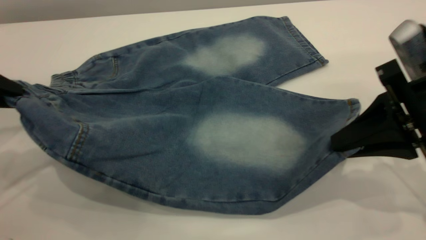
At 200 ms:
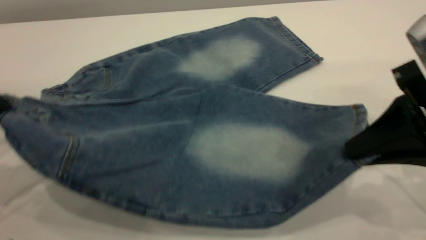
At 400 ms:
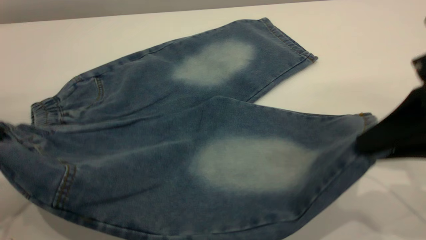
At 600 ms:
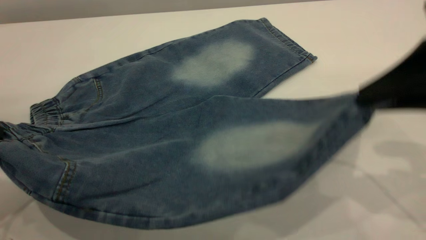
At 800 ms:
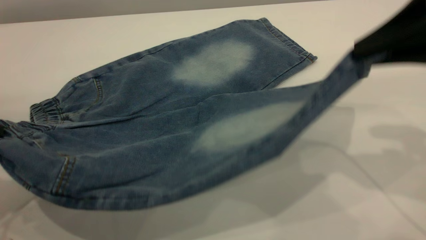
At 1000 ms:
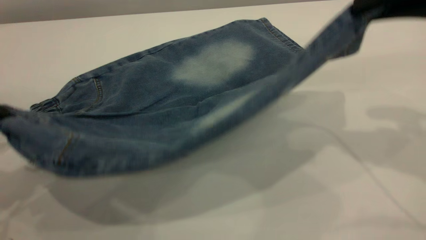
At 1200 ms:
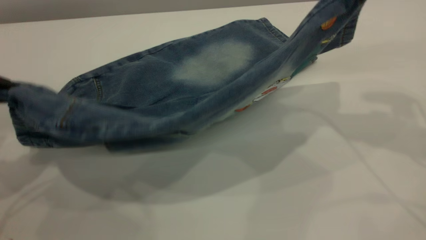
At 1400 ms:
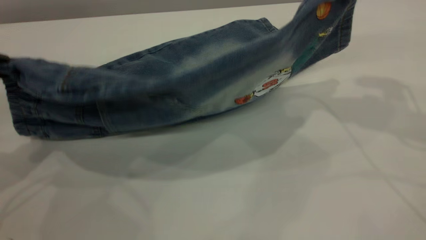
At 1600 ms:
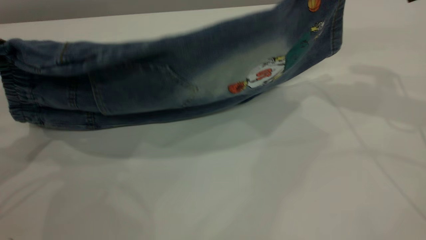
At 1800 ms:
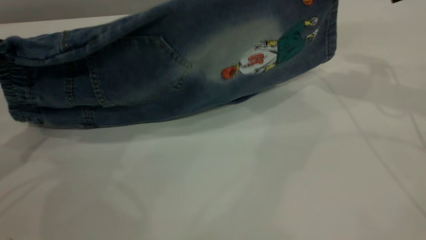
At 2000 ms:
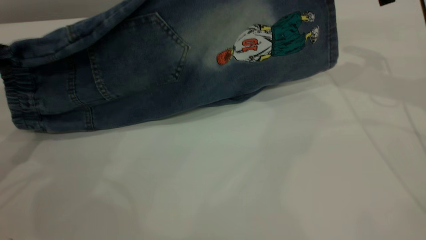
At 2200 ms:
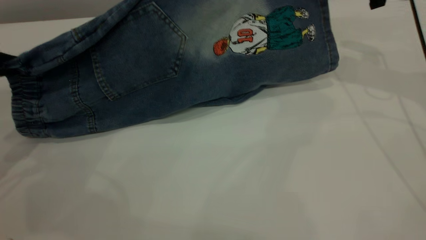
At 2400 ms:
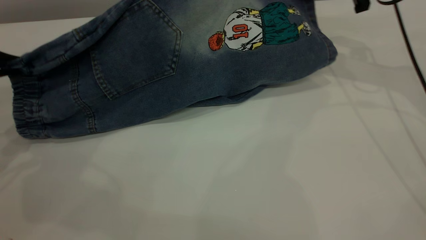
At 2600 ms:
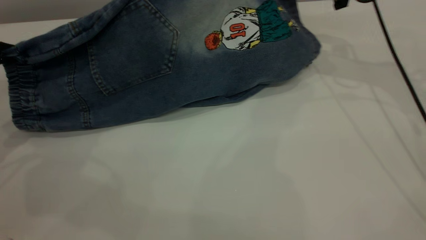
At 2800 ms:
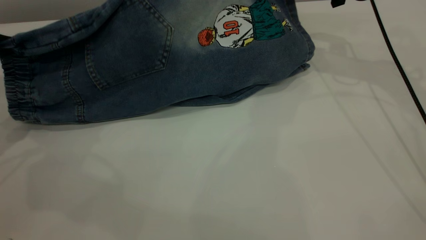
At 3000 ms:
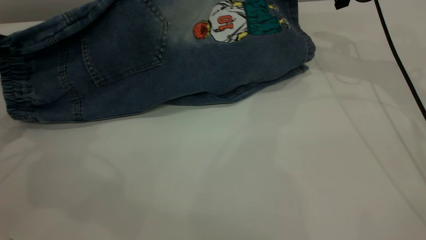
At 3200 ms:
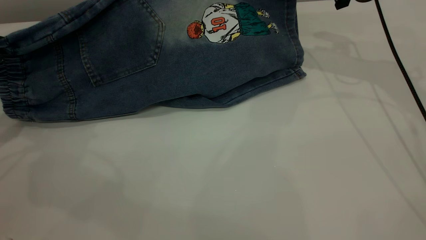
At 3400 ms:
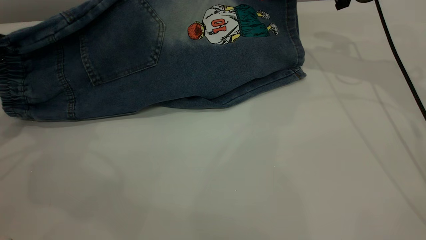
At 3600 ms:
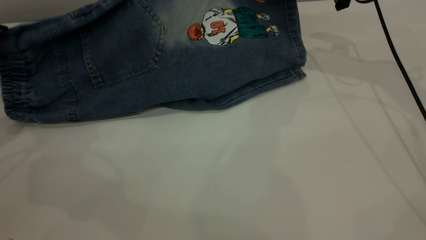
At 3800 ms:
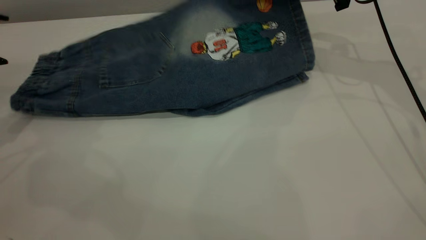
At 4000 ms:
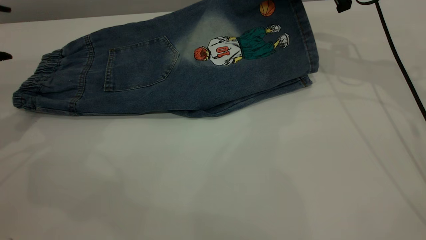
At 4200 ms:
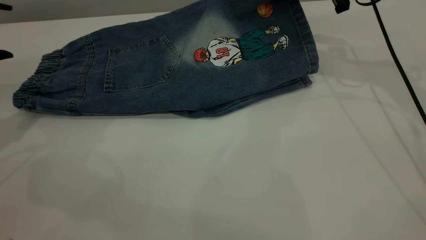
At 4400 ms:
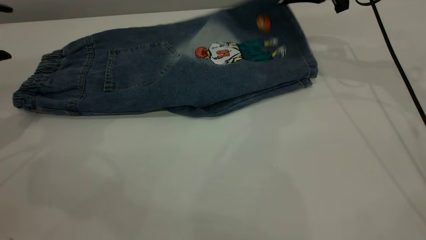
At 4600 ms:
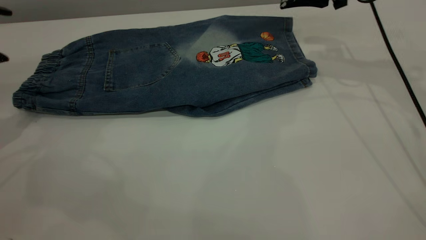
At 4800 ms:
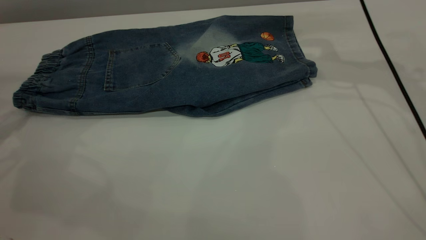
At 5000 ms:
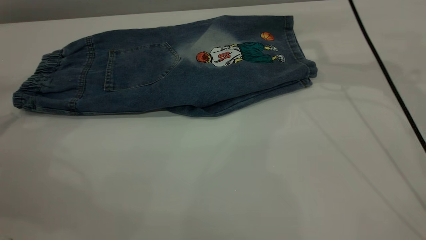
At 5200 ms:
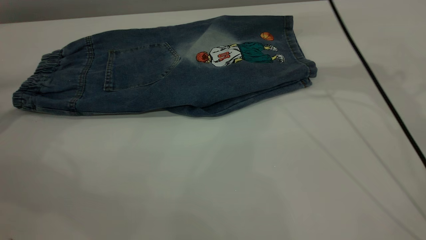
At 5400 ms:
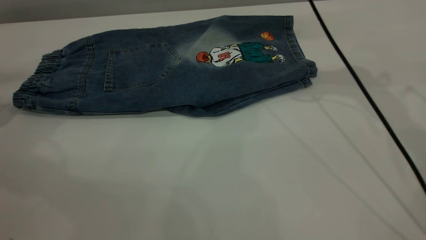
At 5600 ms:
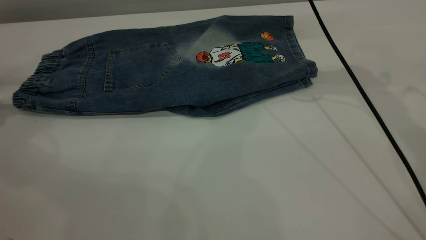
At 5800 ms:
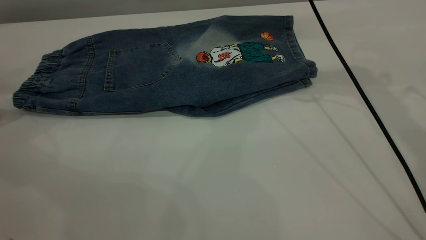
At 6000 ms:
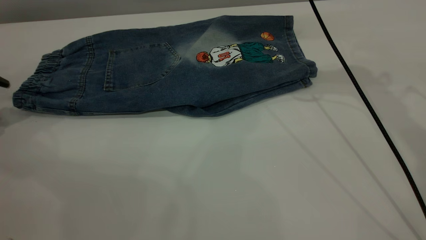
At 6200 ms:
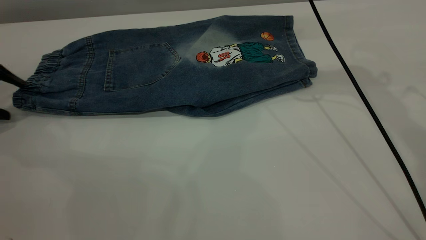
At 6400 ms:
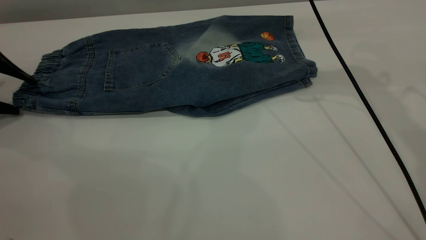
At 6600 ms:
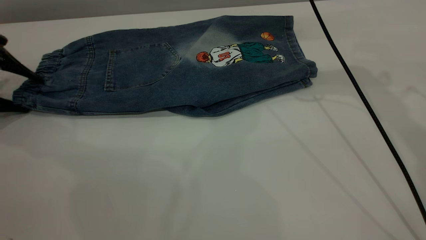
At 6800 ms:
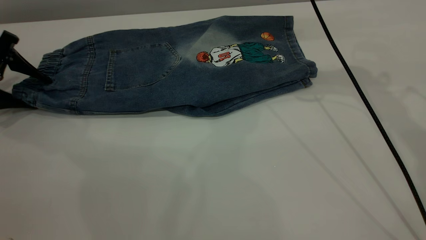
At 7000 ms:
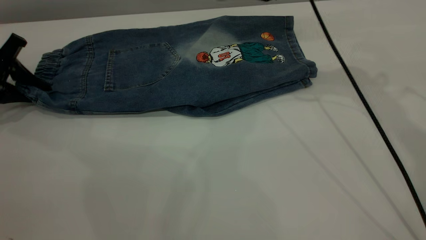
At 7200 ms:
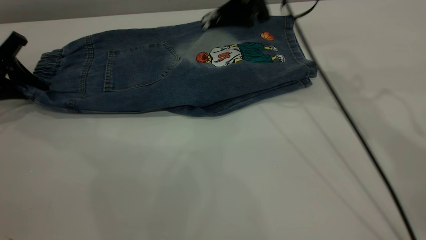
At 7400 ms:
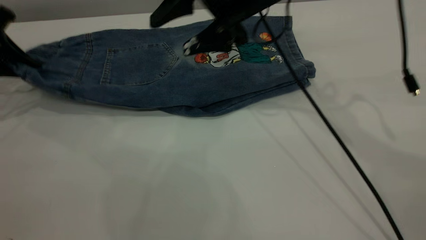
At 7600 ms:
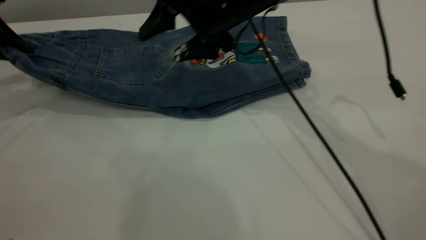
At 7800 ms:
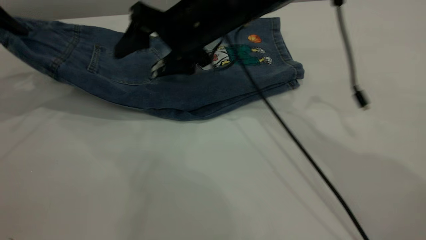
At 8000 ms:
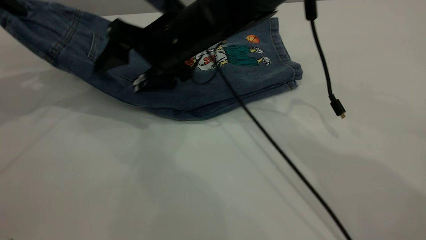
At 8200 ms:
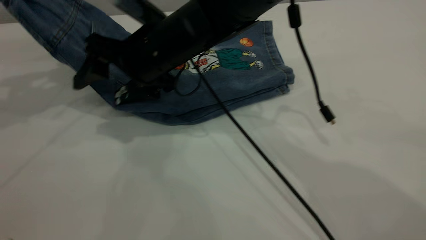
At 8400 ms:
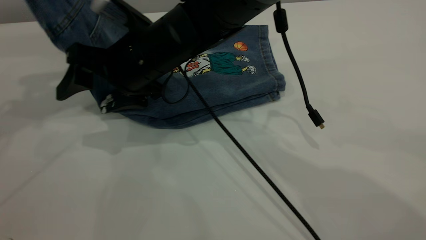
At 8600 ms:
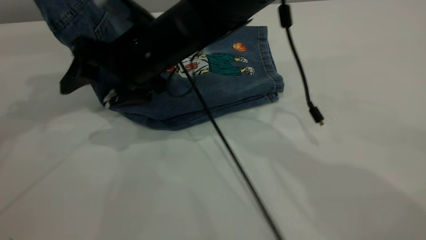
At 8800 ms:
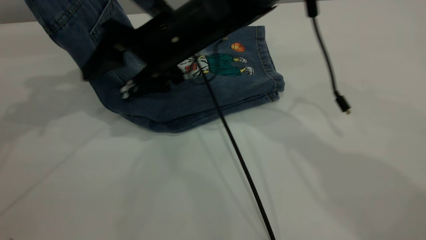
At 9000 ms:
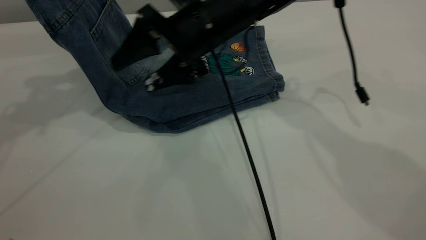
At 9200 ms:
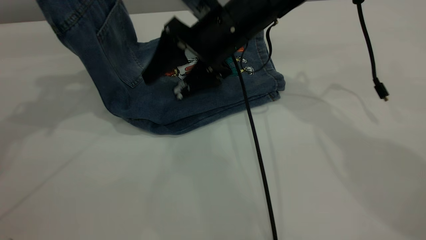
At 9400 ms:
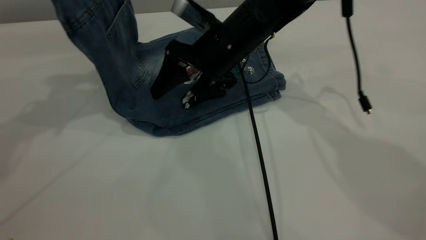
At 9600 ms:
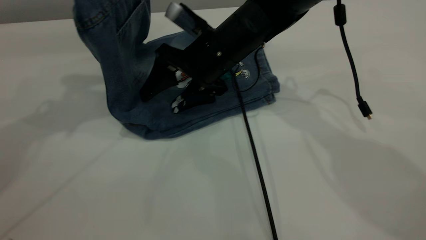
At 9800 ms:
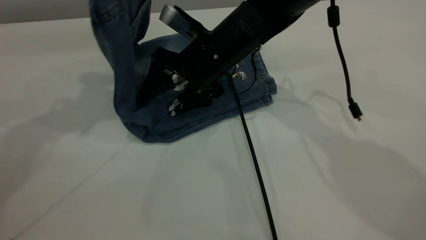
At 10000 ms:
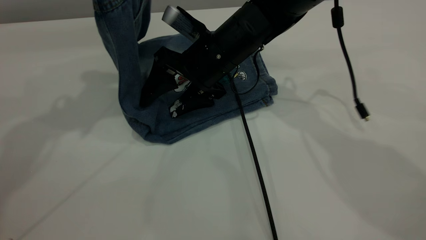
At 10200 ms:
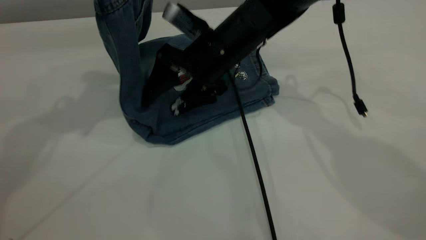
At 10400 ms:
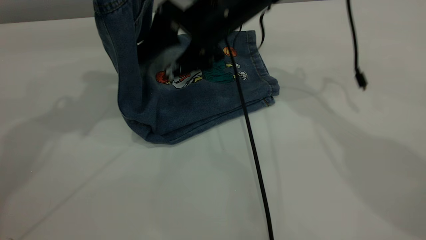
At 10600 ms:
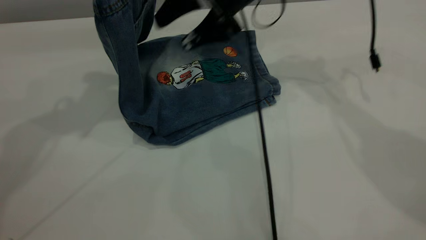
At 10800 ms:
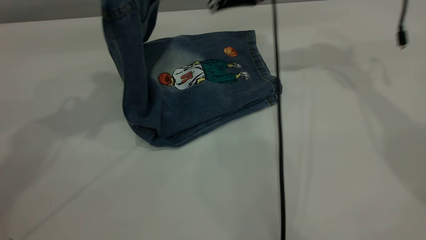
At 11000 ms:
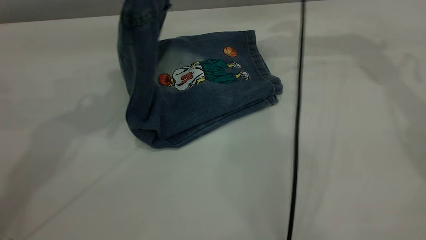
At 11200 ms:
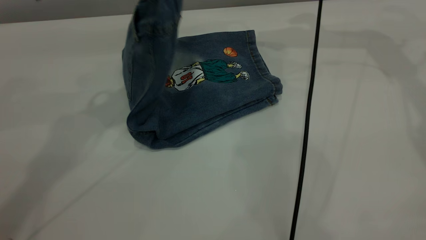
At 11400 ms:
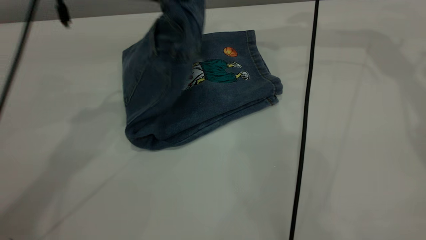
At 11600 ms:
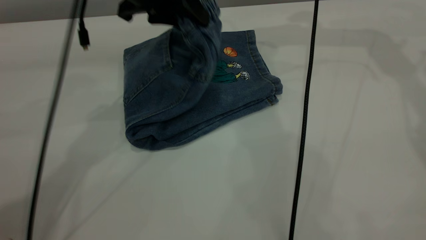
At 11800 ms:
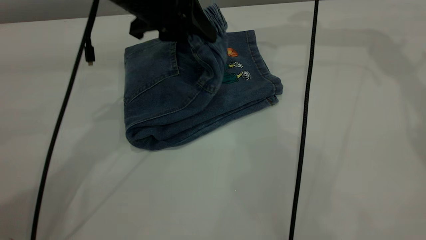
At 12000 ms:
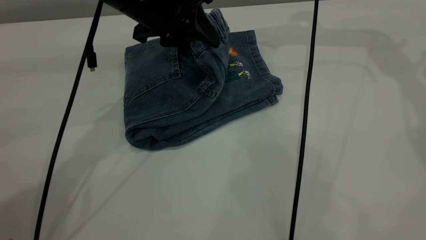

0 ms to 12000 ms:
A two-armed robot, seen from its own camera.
Step, 0 ms to 4600 ms: Fold the bottom of the pants upward.
0 ms to 1600 ms: The right gripper goes roughly 20 cm forward and upward.
1600 ms to 3000 ms: The left gripper travels forward by approximately 5 cm, while the right gripper shifts roughly 10 cm forward and downward.
3000 ms to 4400 ms: The left gripper opens up. Meanwhile the right gripper opens up.
4400 ms to 6000 ms: The right gripper moves to the left, about 10 cm, and opens. The left gripper shifts about 10 cm downward and to the left.
6000 ms to 7600 ms: The left gripper is displaced upward and to the right by roughly 10 cm, and closes. The right gripper moves to the left and downward, about 15 cm.
7600 ms to 9000 ms: The left gripper travels upward and to the right by some 15 cm; the right gripper travels to the left and back again, roughly 10 cm each way.
9000 ms to 10400 ms: The left gripper moves to the right, some 10 cm.
10400 ms to 12000 ms: The left gripper moves downward and to the right, roughly 20 cm, while the right gripper moves to the right, upward and forward, some 25 cm.

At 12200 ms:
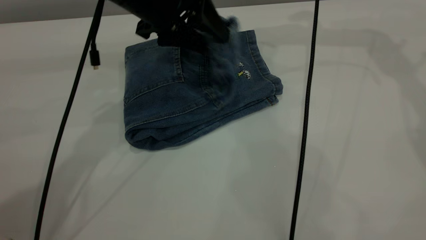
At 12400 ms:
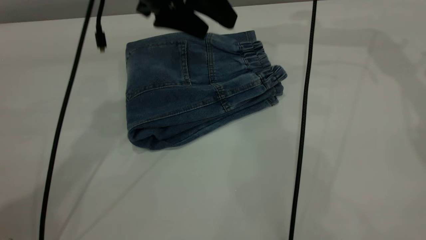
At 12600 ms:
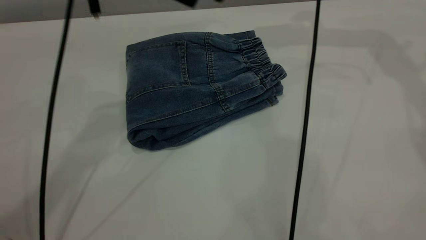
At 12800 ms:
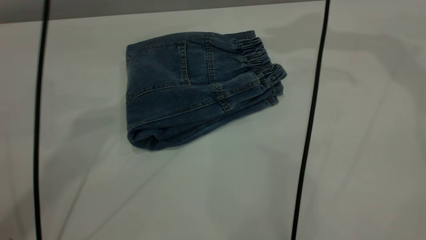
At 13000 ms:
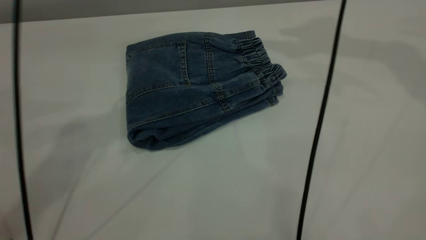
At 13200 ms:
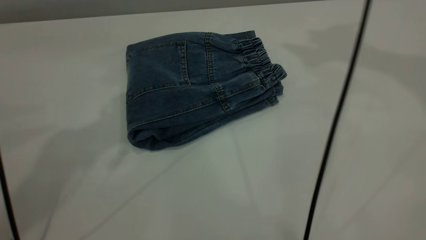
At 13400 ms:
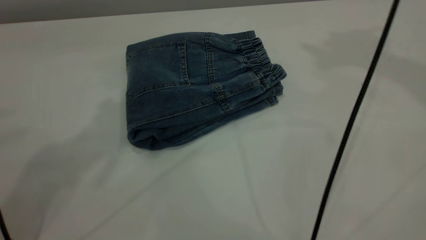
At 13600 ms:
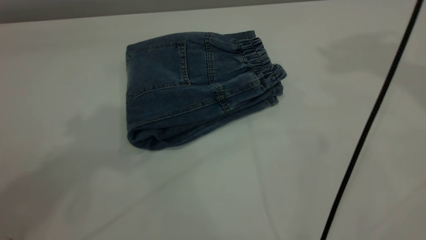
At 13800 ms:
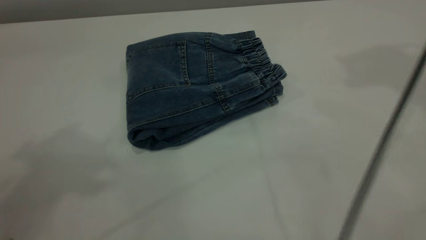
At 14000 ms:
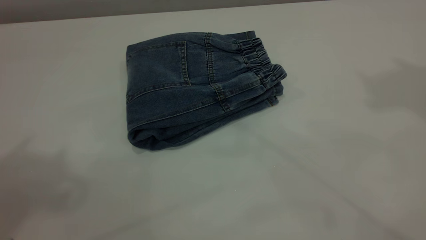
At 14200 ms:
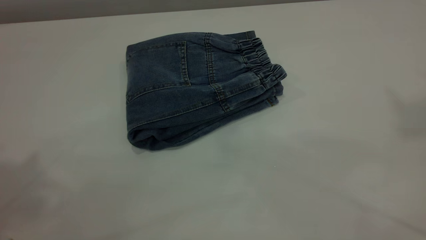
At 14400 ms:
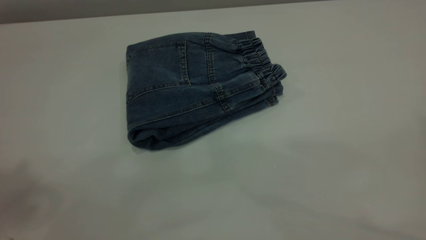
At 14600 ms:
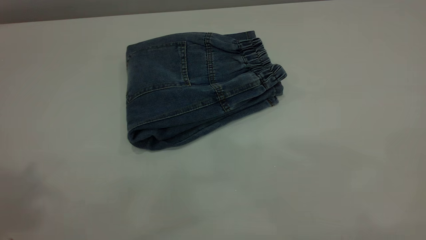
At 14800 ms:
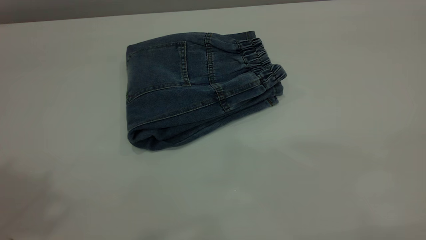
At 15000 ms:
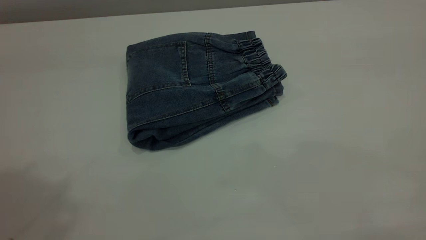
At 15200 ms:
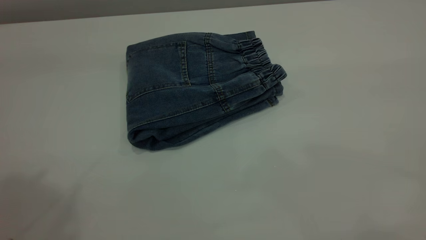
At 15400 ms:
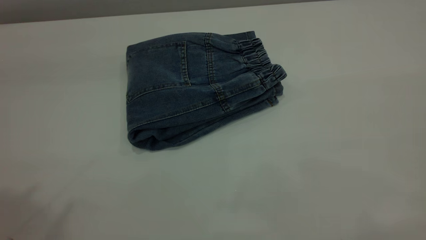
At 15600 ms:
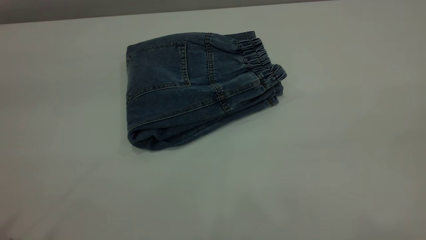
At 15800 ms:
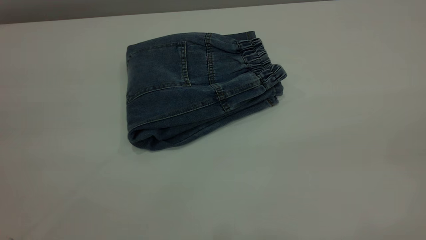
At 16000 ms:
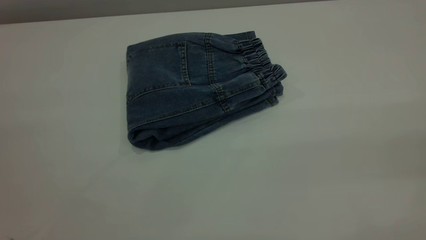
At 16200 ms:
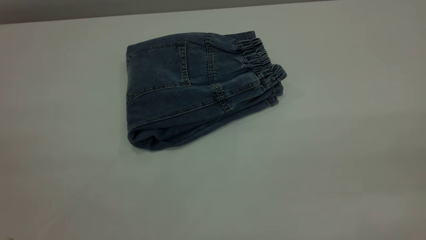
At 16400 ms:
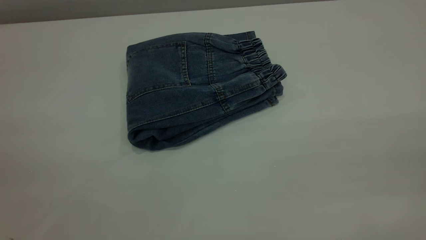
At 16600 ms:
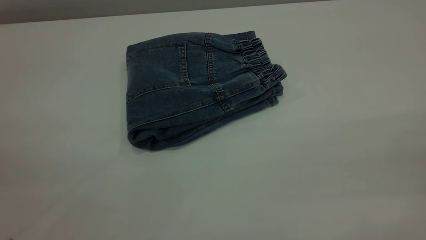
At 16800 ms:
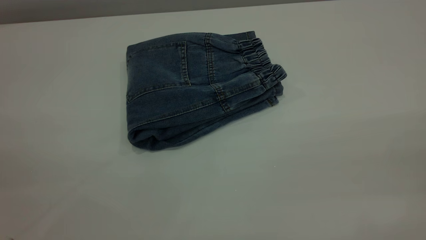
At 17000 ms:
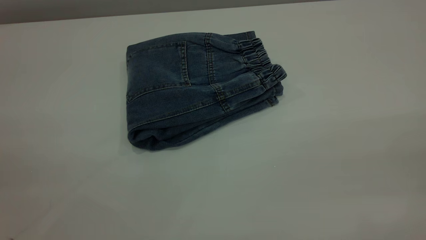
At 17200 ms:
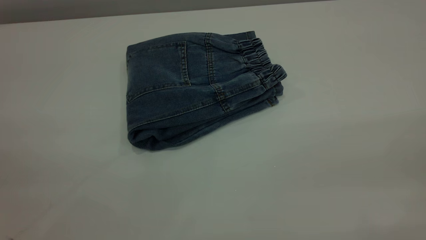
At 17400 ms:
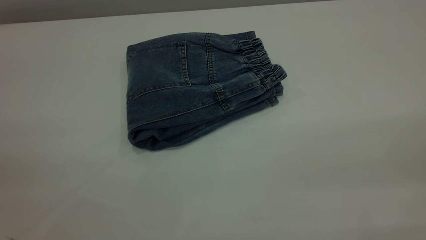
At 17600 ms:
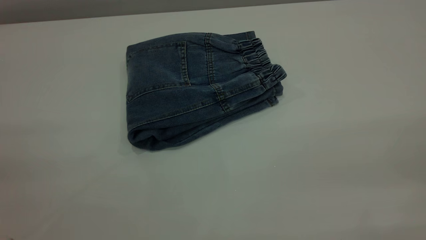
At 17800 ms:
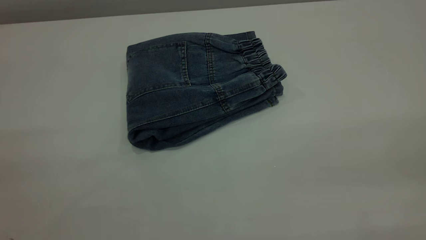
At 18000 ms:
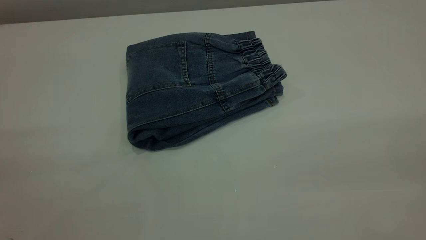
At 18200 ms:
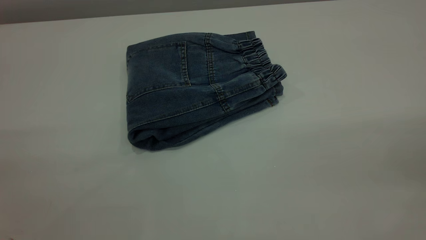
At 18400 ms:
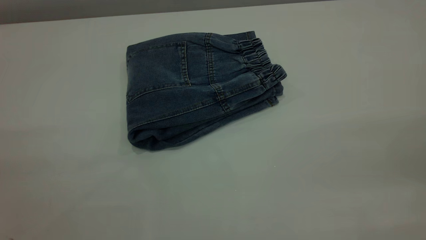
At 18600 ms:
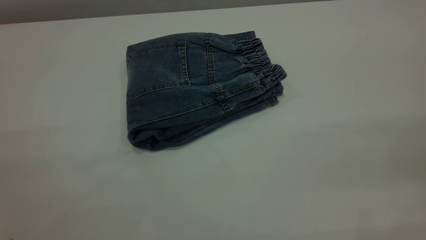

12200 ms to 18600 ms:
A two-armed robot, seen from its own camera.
12200 ms to 13800 ms: The right gripper moves upward and backward, roughly 30 cm. The left gripper moves upward, backward and to the left, about 35 cm.
13800 ms to 15400 ms: The right gripper moves backward, some 40 cm.
